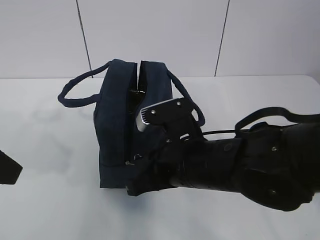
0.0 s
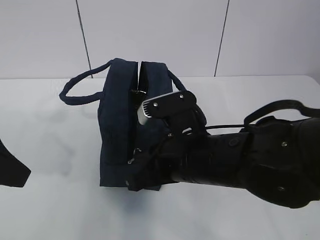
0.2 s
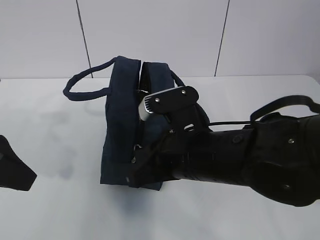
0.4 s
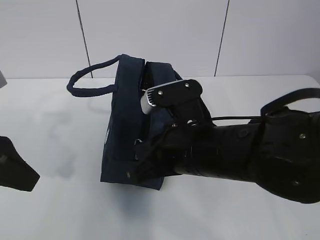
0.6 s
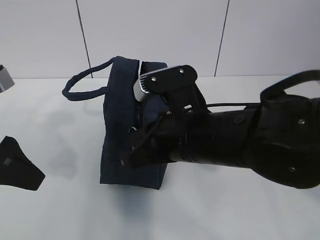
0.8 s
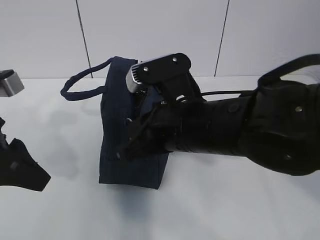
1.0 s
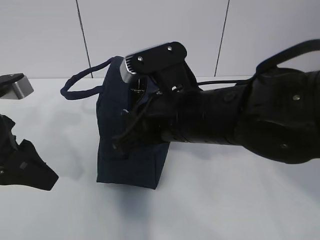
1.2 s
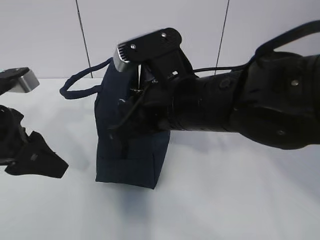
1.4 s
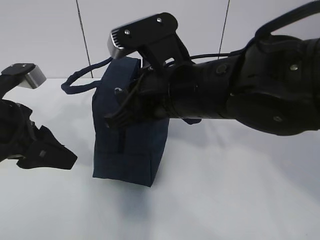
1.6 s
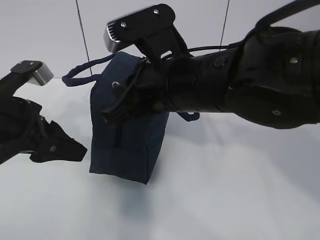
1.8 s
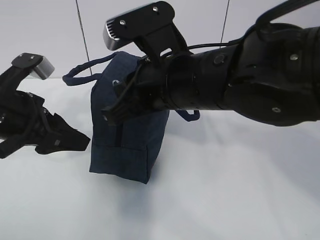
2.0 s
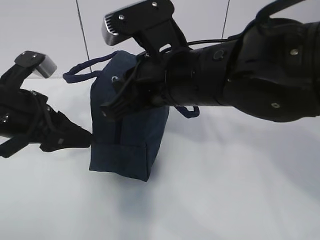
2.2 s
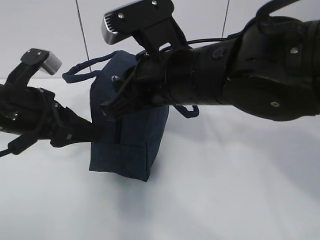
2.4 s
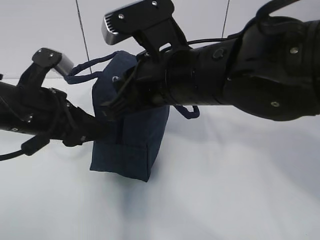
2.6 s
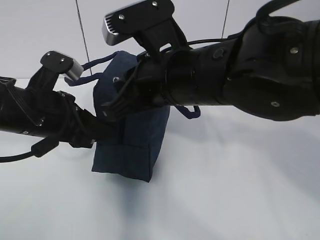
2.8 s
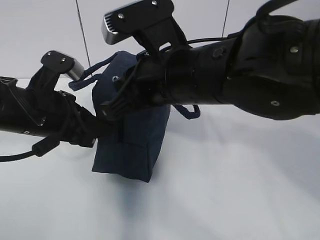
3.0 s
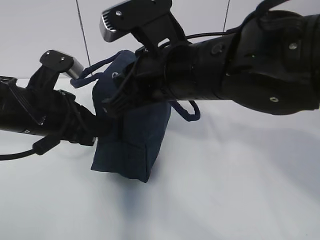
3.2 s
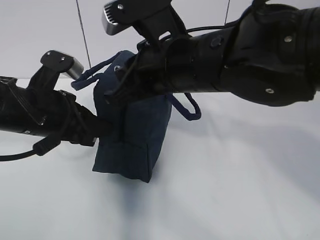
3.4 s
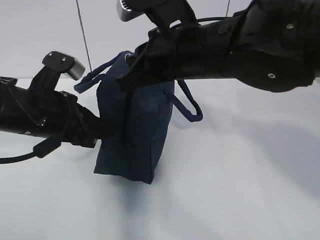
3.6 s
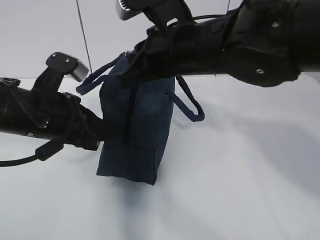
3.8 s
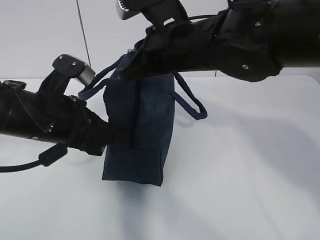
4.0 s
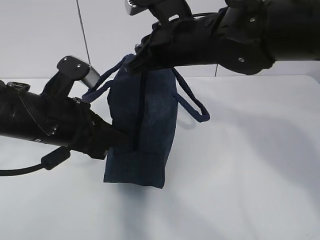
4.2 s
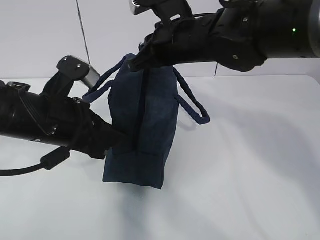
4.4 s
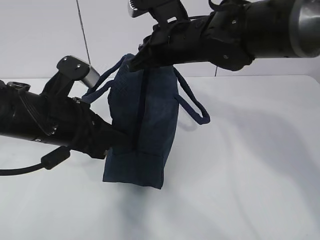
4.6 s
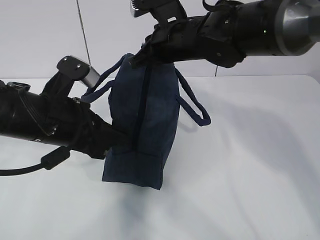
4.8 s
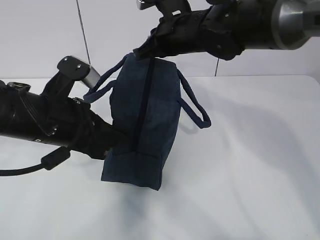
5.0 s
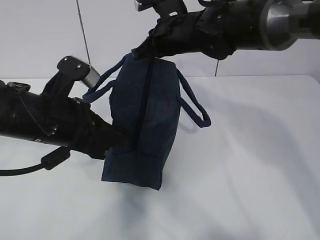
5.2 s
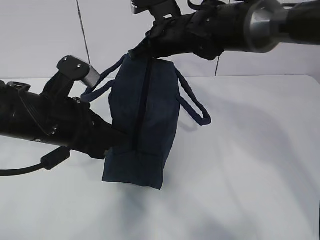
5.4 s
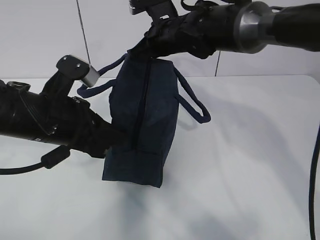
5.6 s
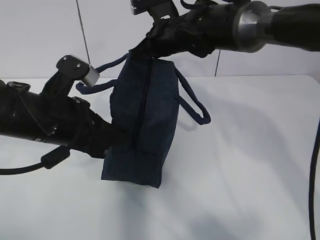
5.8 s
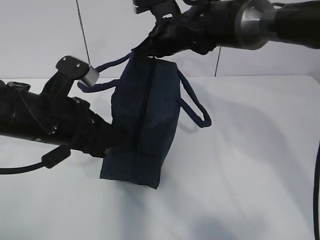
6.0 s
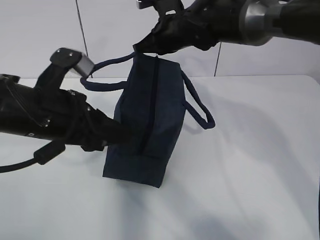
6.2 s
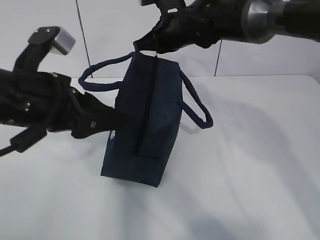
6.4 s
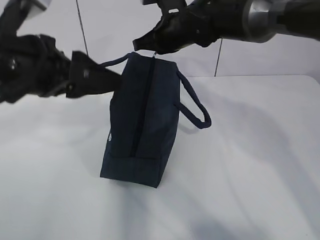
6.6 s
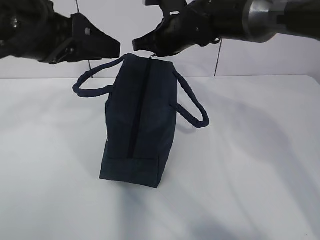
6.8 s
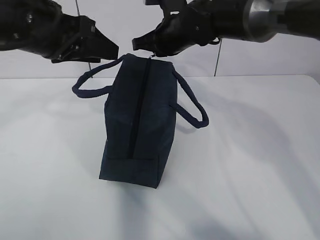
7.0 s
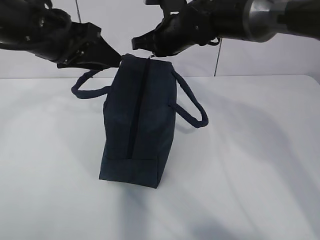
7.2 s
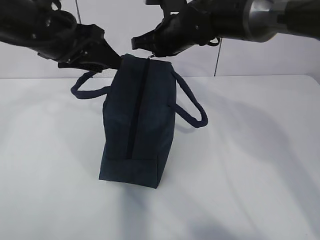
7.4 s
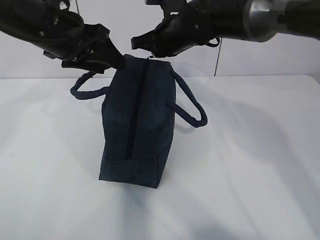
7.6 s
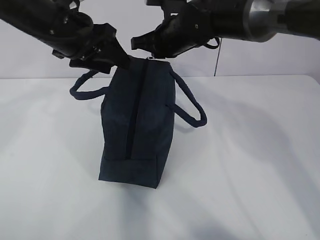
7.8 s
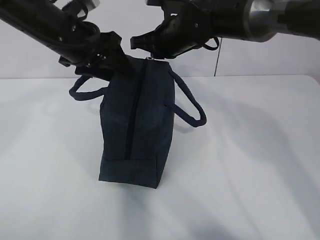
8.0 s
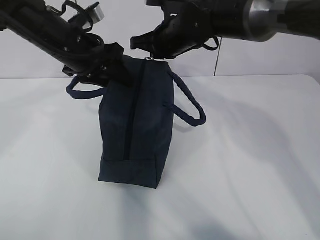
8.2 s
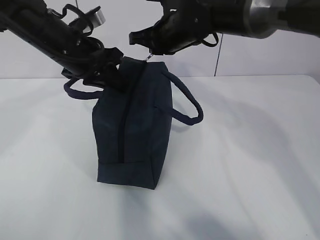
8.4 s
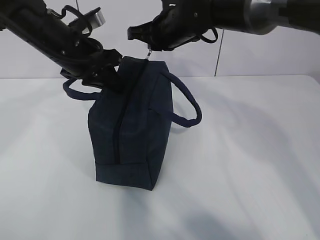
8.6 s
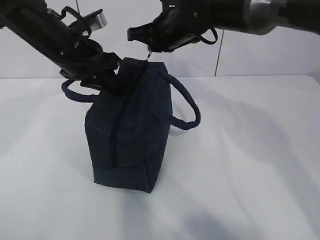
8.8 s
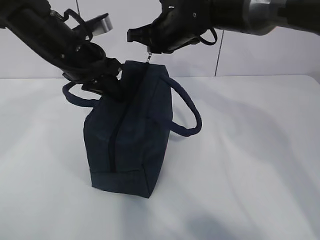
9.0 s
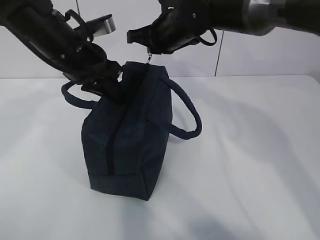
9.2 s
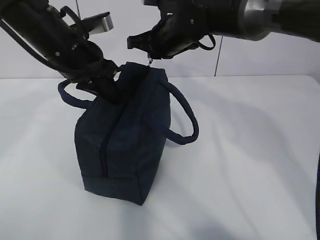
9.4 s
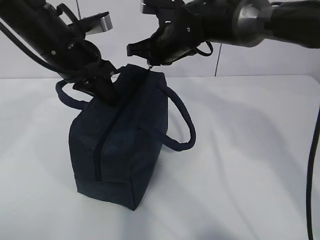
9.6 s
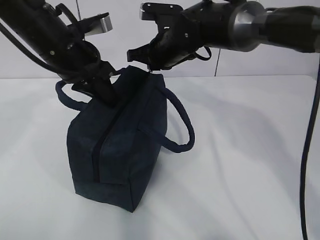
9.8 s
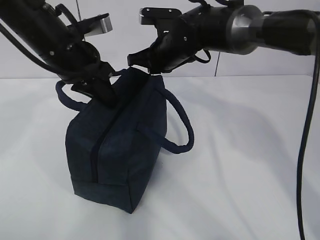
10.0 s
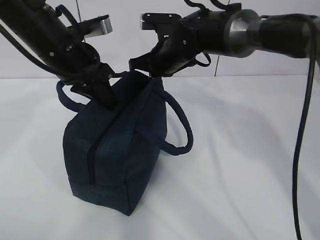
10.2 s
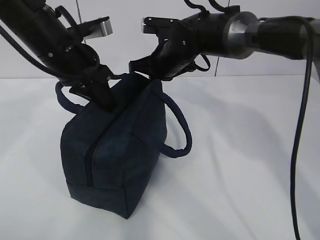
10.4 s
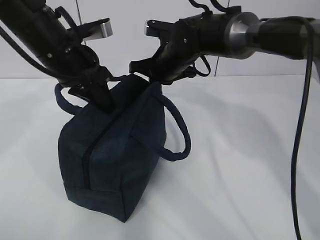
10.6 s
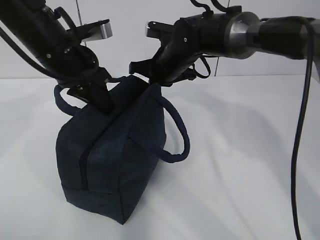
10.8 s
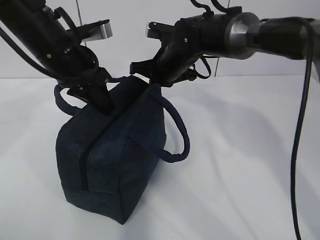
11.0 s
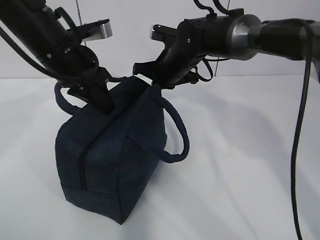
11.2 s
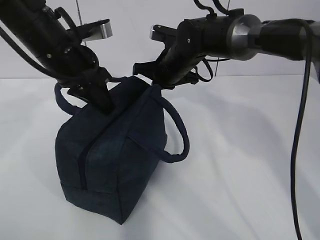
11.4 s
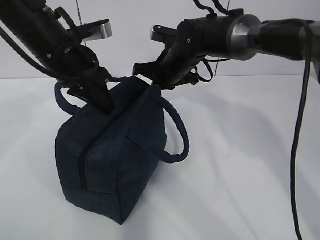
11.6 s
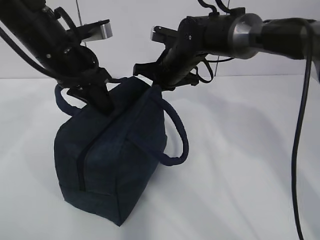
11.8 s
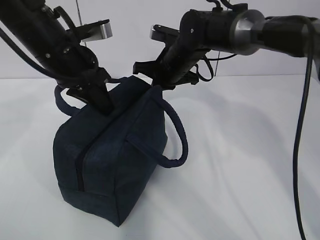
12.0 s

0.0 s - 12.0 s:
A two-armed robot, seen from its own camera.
0.0 s - 1.6 s: The right gripper travels upward by about 10 cm, while the left gripper shifts roughly 10 cm forward and downward.
1.6 s - 3.0 s: The left gripper ends up some 5 cm from where it was, and closes its fingers.
3.0 s - 4.4 s: The right gripper heads forward, covering roughly 10 cm.
4.4 s - 6.0 s: The right gripper is displaced forward by some 10 cm.
6.0 s - 7.6 s: The left gripper shifts about 15 cm forward and upward, and opens up.
7.6 s - 9.0 s: The left gripper shifts by roughly 5 cm, and closes up.
9.0 s - 10.4 s: The right gripper moves downward, about 5 cm.
10.4 s - 12.0 s: There are only small adjustments of the grippers.

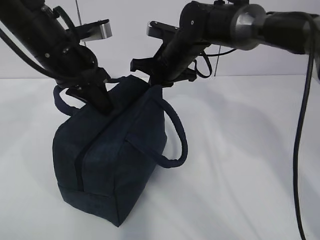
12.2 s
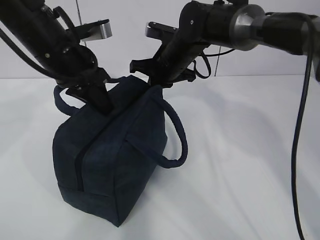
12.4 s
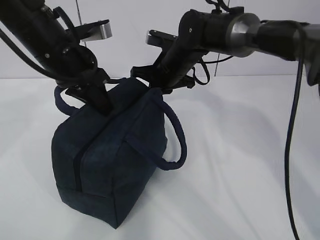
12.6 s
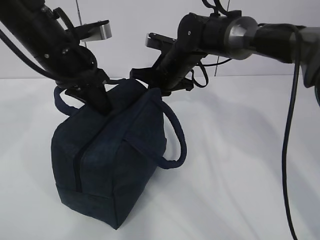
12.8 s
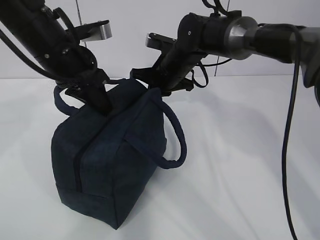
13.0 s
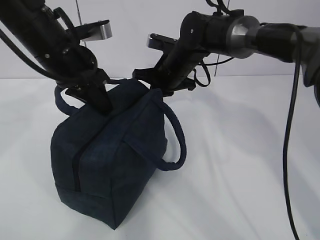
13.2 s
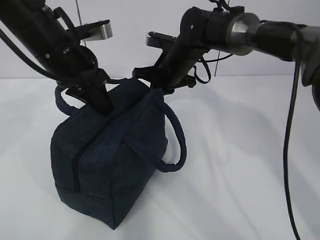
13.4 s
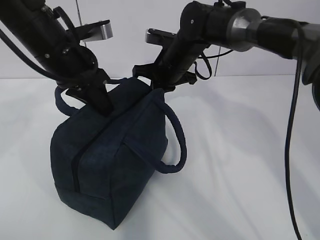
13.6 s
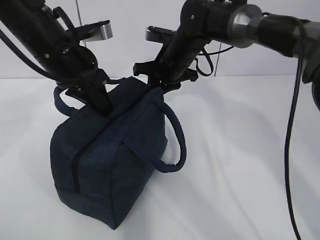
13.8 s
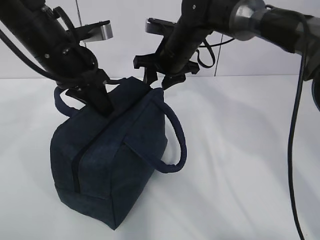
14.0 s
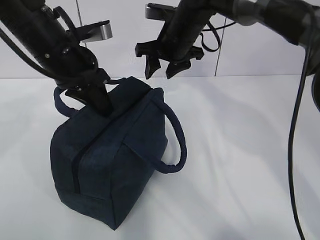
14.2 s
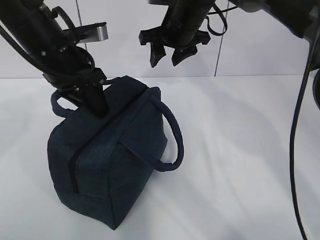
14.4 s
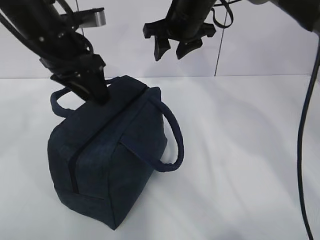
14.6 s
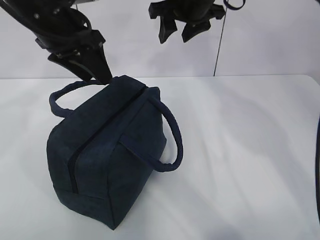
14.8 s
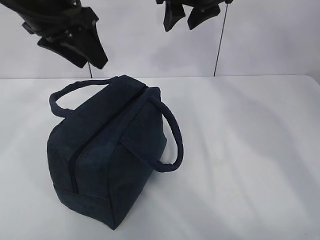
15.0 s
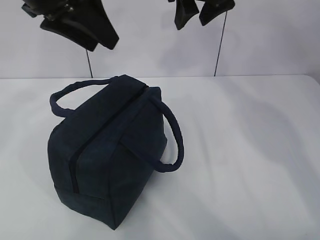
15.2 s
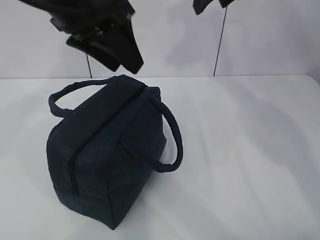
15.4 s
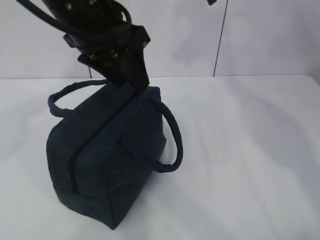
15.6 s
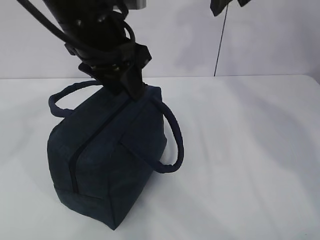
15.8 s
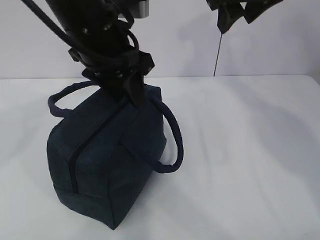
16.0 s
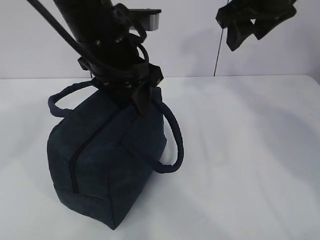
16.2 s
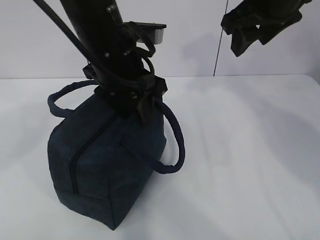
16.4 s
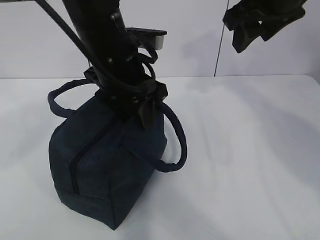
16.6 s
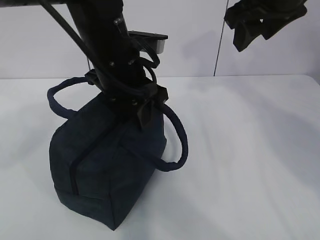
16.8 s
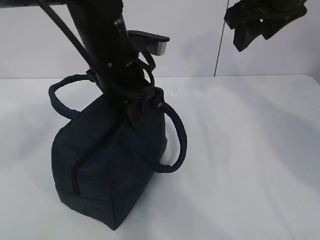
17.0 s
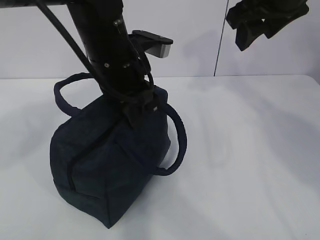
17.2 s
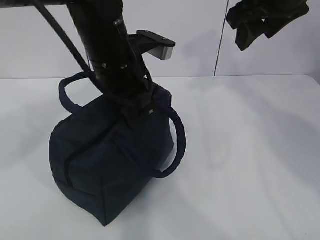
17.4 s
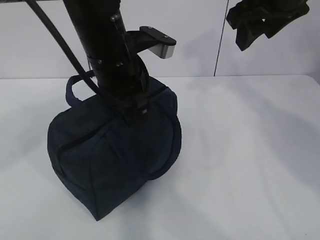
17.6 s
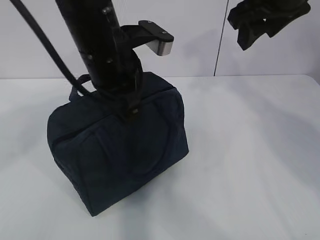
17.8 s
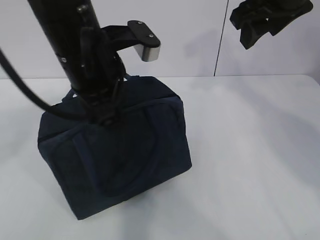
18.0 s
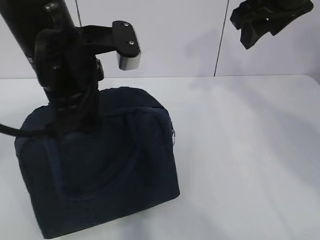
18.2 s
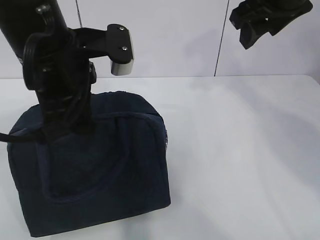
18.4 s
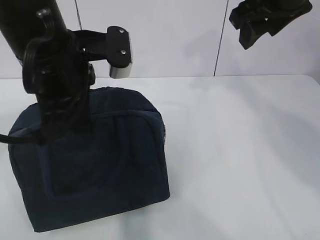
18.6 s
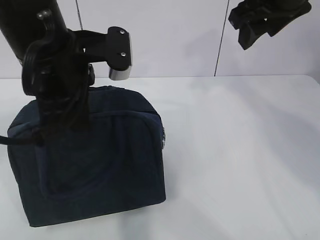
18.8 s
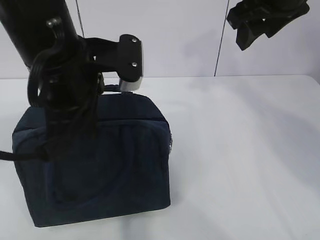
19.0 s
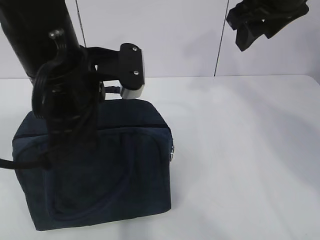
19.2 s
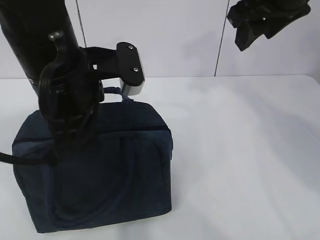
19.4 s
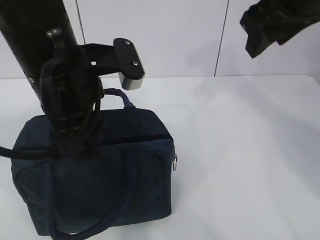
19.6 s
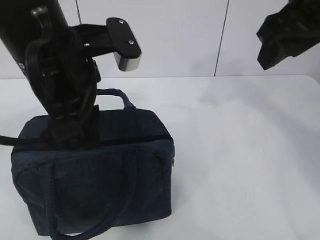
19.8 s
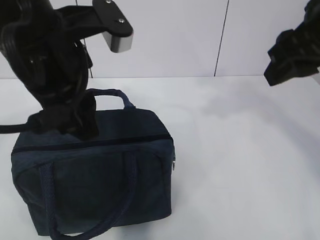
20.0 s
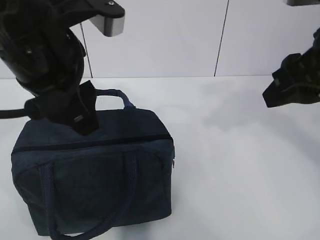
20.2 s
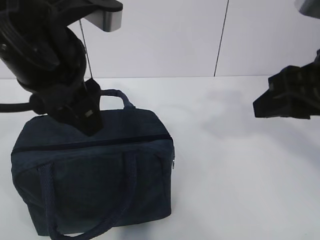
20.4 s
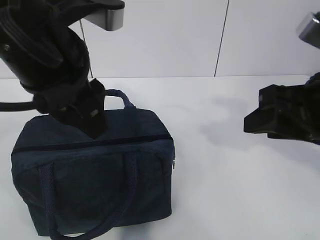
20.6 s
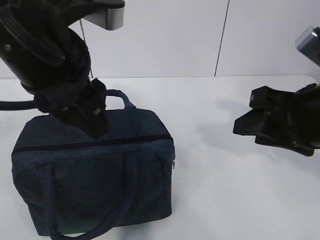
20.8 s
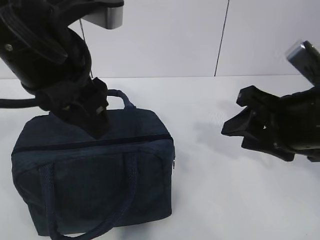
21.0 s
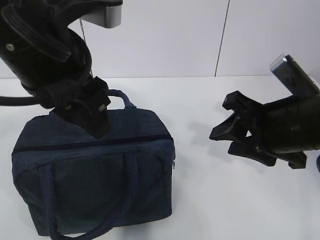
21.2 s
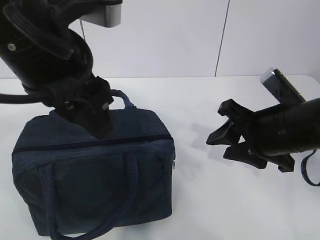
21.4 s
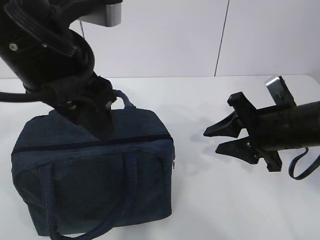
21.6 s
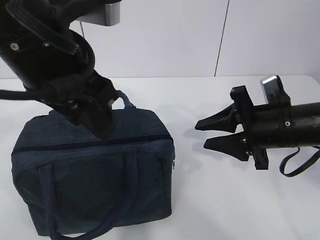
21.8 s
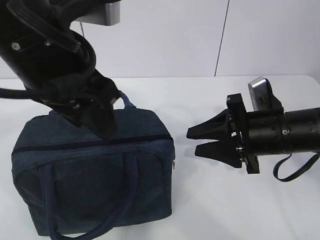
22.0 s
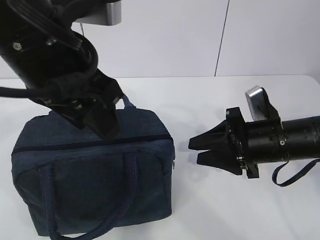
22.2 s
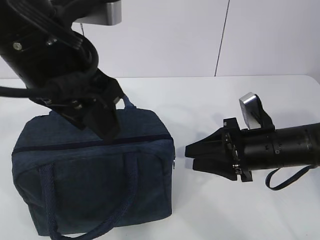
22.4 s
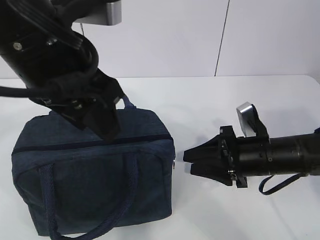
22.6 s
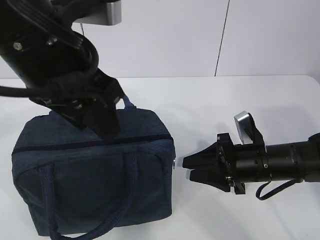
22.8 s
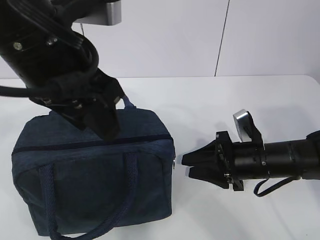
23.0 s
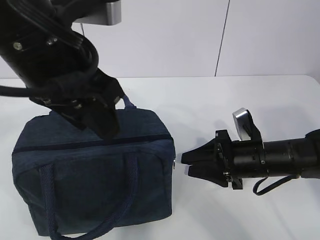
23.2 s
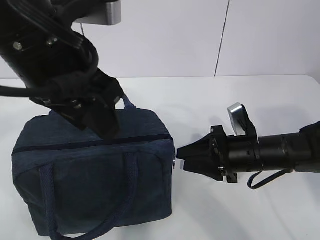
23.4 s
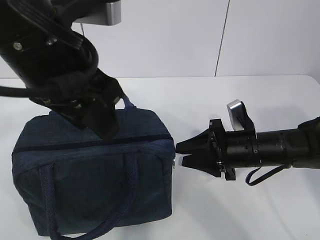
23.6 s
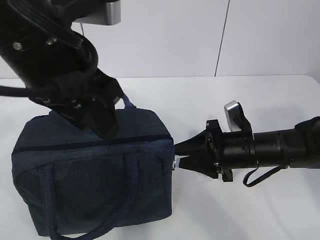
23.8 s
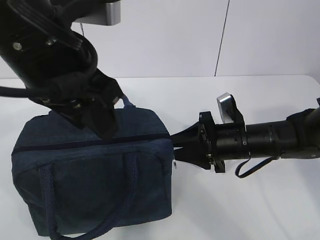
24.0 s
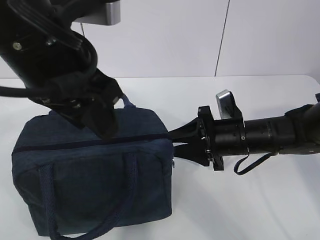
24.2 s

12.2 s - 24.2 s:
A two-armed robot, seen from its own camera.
12.2 s - 13.8 s: The grippers move only a little.
13.8 s - 15.2 s: Both grippers move upward, about 15 cm. The left gripper opens its fingers. The right gripper opens.
15.2 s - 16.6 s: The right gripper heads backward and to the right, covering some 10 cm; the left gripper goes about 15 cm downward and to the right.
16.6 s - 18.2 s: The left gripper moves some 5 cm, and closes its fingers.
18.2 s - 19.8 s: The left gripper opens its fingers; the right gripper heads backward, covering about 5 cm.
19.8 s - 21.2 s: The right gripper heads downward and backward, covering about 15 cm.
21.2 s - 22.6 s: The right gripper shifts approximately 15 cm downward and forward.
22.6 s - 24.2 s: The right gripper moves approximately 5 cm.
